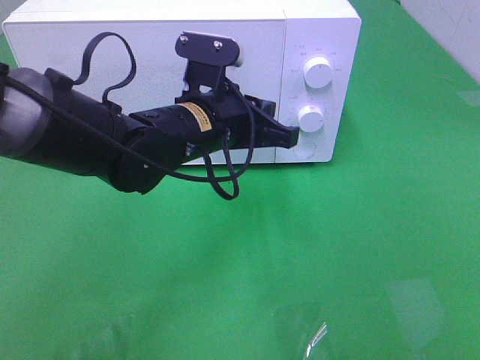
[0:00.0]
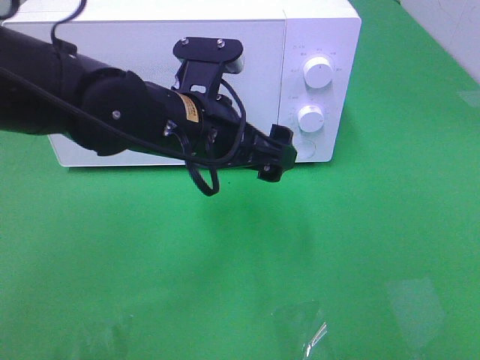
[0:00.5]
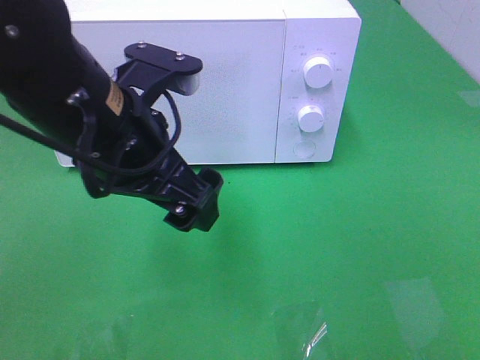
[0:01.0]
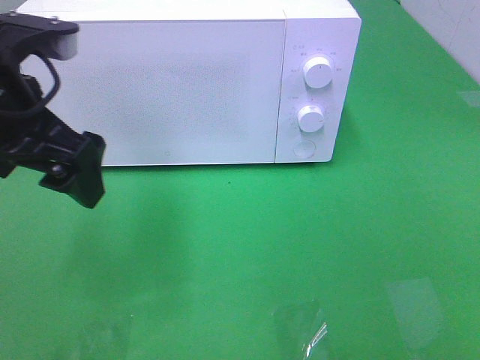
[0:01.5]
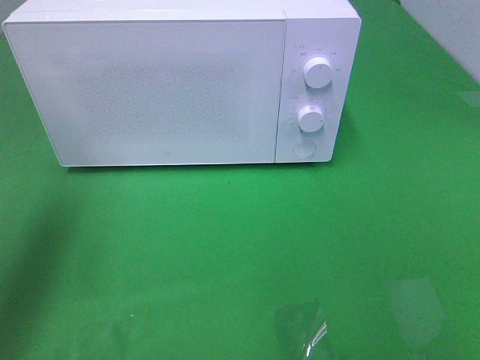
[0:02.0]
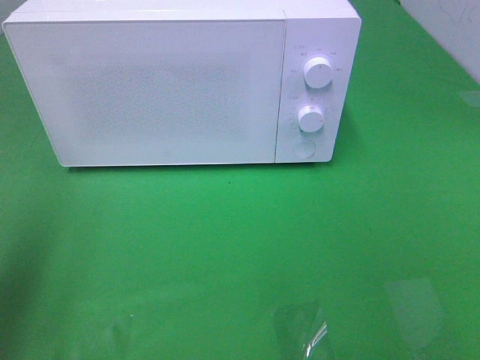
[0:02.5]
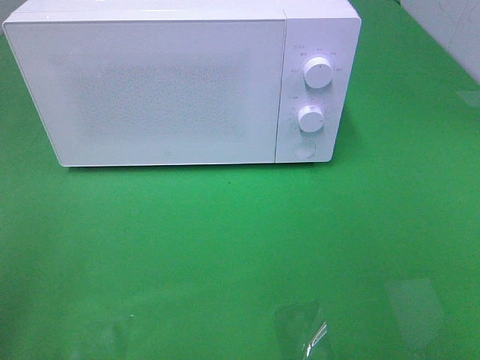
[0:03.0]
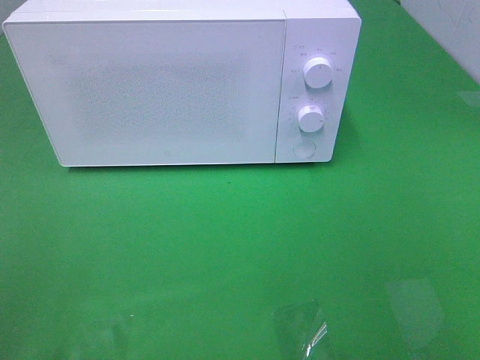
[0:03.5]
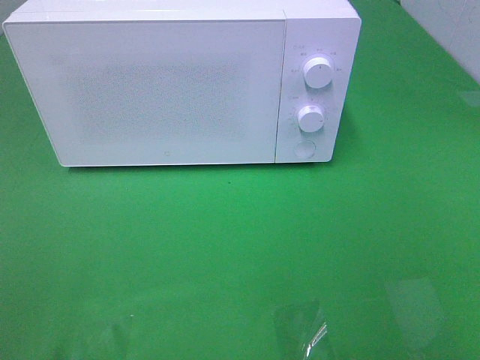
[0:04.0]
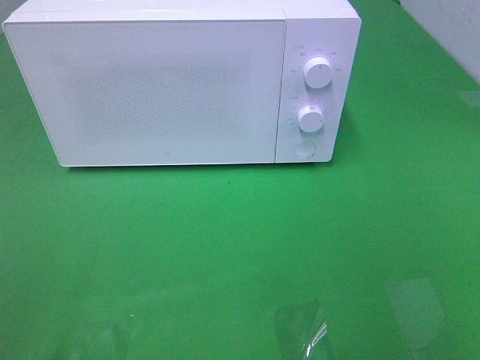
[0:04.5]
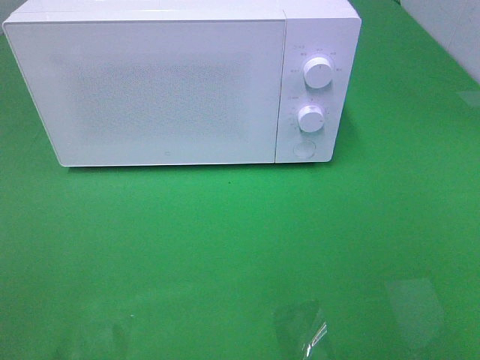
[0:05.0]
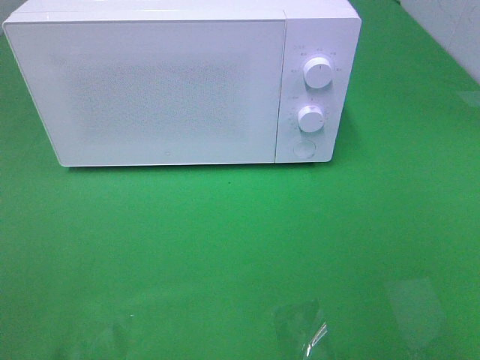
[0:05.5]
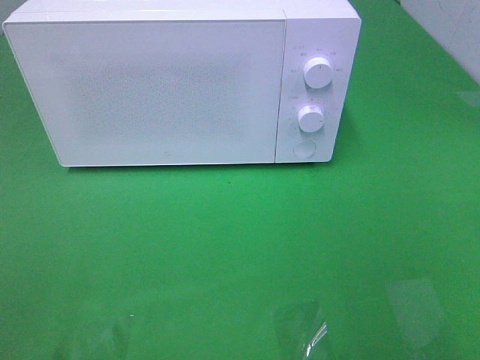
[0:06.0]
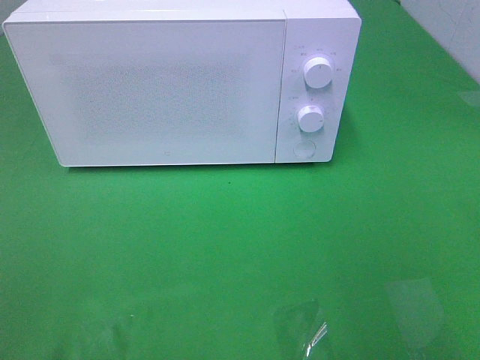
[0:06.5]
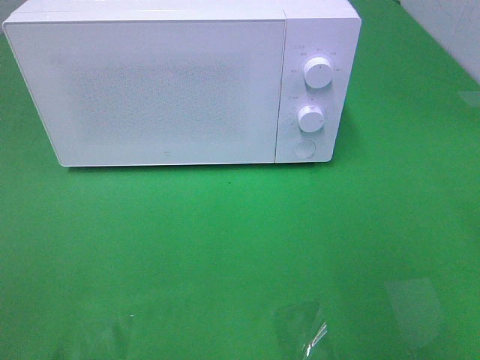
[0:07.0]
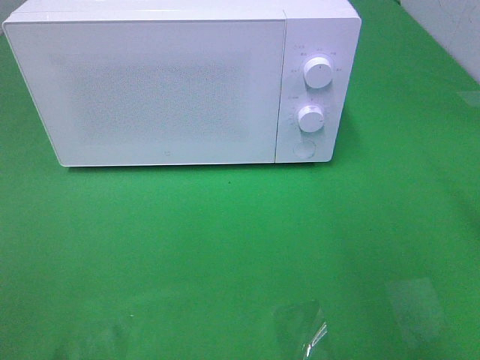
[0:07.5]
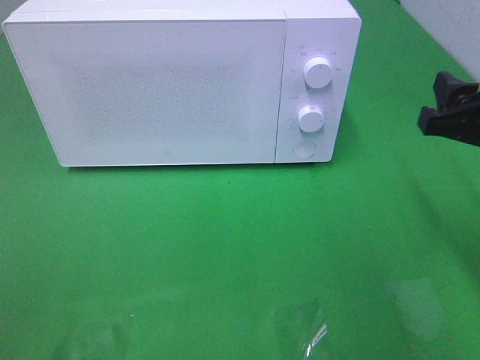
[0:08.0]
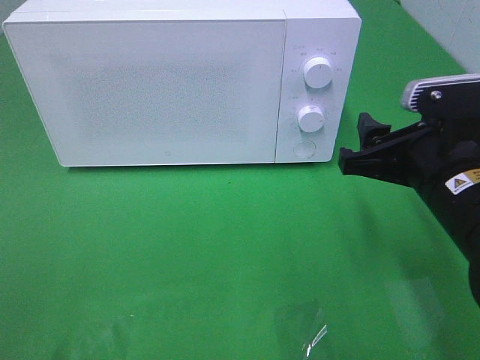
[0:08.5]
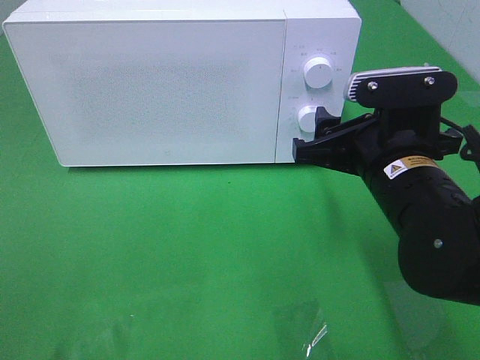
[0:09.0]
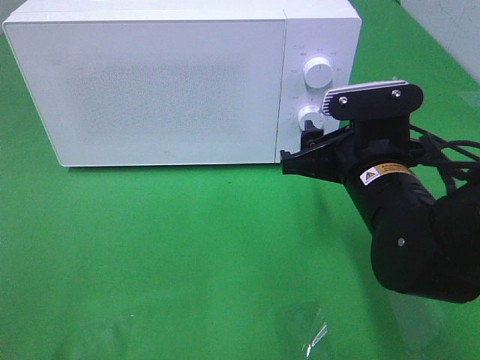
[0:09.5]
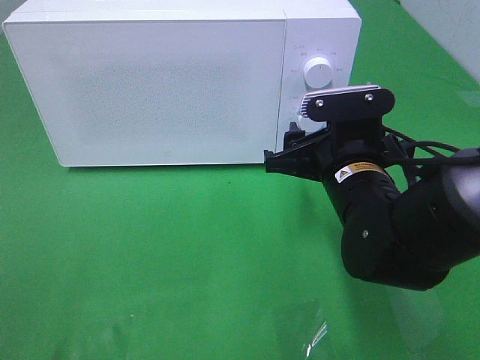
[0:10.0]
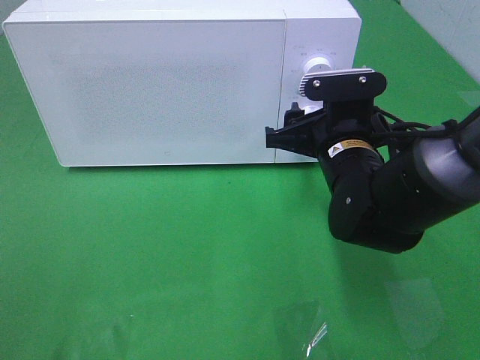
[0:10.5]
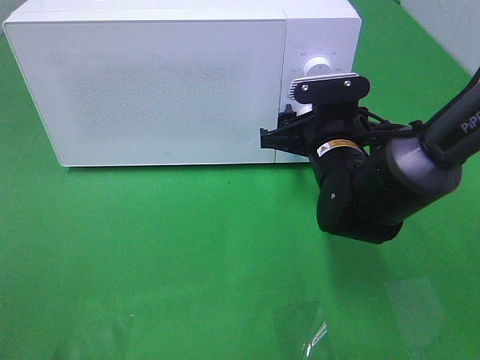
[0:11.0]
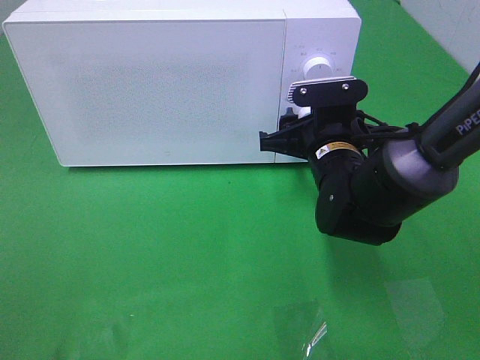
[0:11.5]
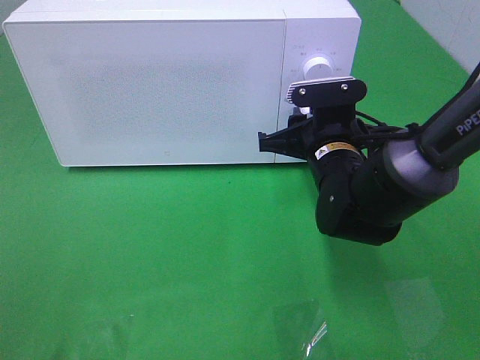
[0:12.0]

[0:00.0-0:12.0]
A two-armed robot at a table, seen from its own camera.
Task of the whole recording: Heat the burger.
0:00.0 to 0:02.0: The left gripper goes some 30 cm to the left and upward, and opens its fingers.
0:02.0 to 0:04.0: The left gripper shifts roughly 25 cm backward.
0:06.0 to 0:08.0: The right gripper heads forward and downward, covering some 20 cm.
0:08.0 to 0:10.0: The right gripper moves to the left and downward, some 15 cm.
0:10.0 to 0:12.0: The right gripper moves forward, some 5 cm.

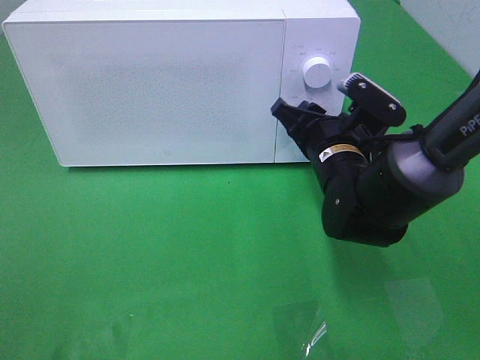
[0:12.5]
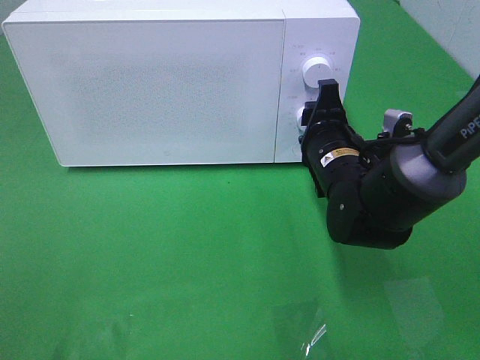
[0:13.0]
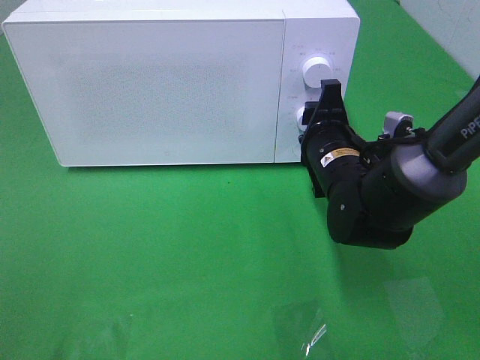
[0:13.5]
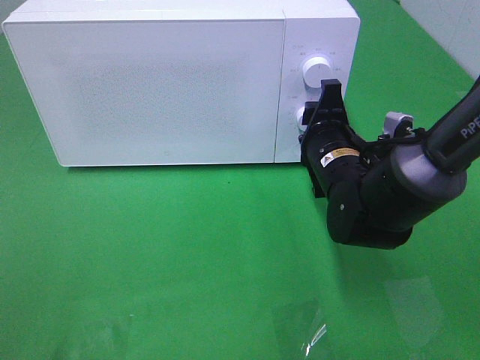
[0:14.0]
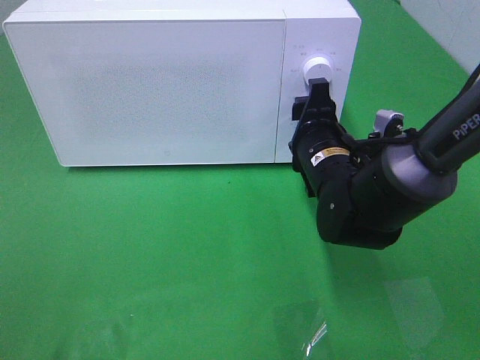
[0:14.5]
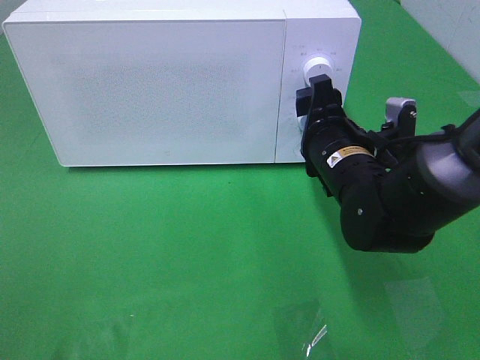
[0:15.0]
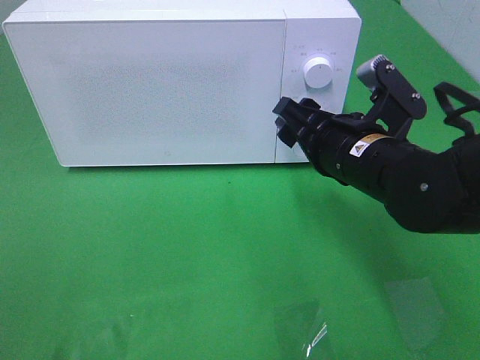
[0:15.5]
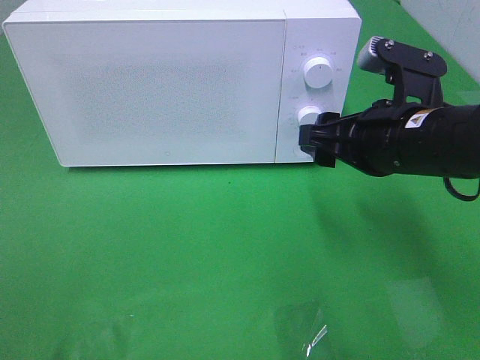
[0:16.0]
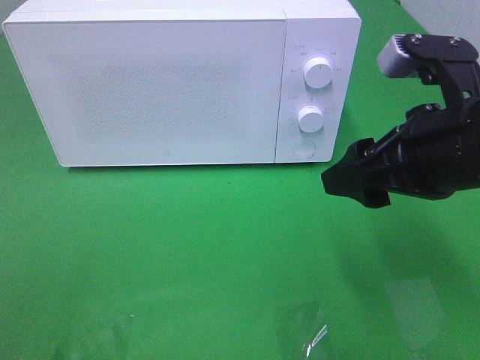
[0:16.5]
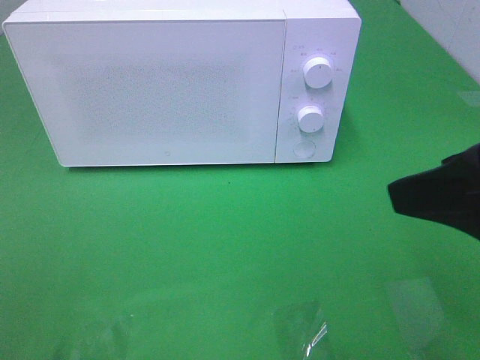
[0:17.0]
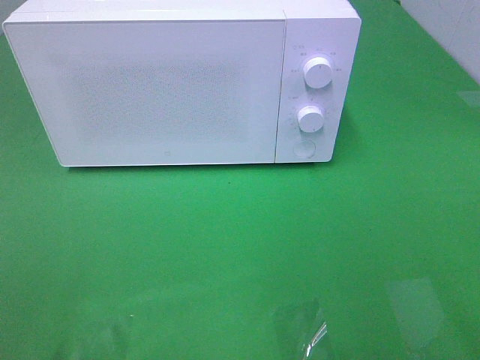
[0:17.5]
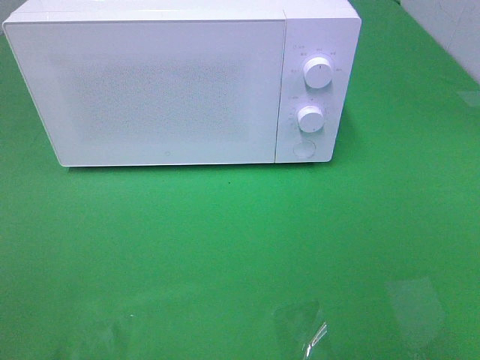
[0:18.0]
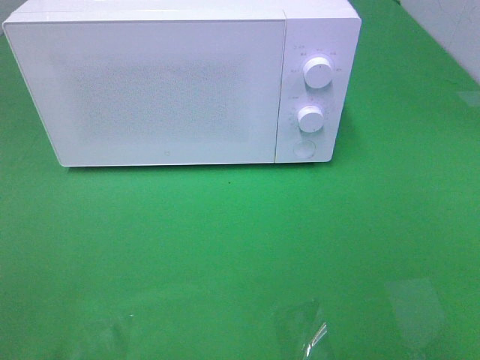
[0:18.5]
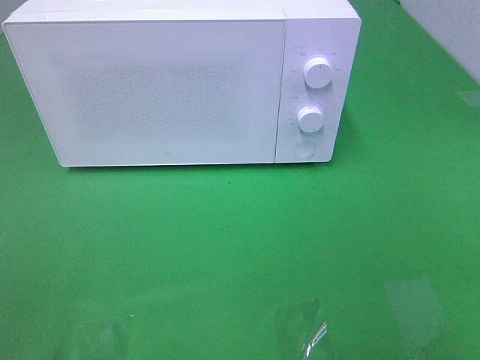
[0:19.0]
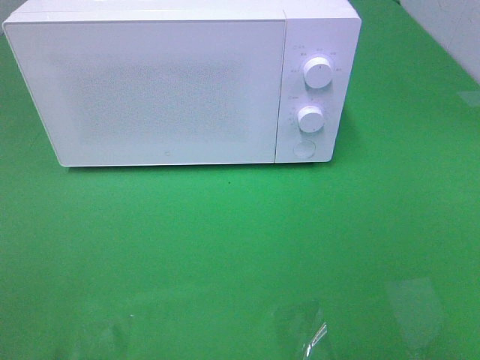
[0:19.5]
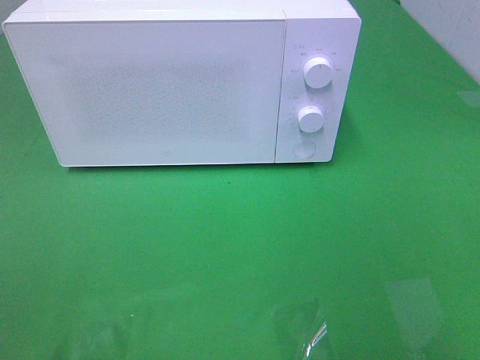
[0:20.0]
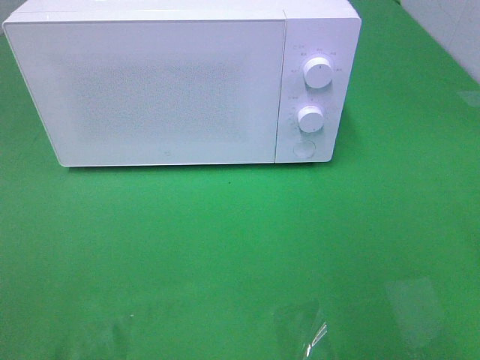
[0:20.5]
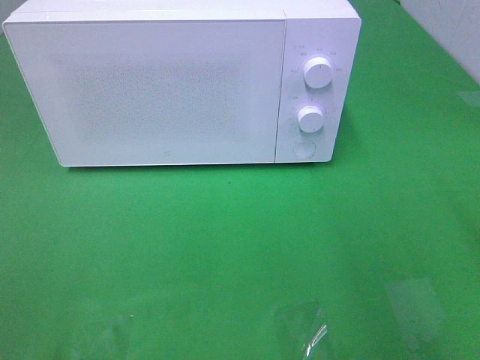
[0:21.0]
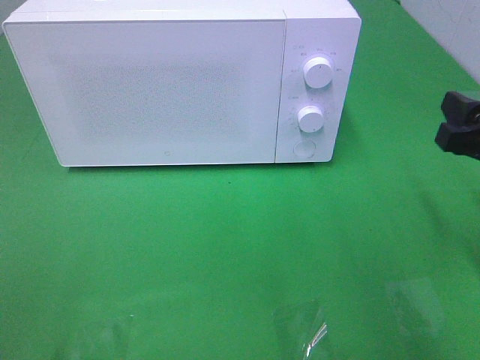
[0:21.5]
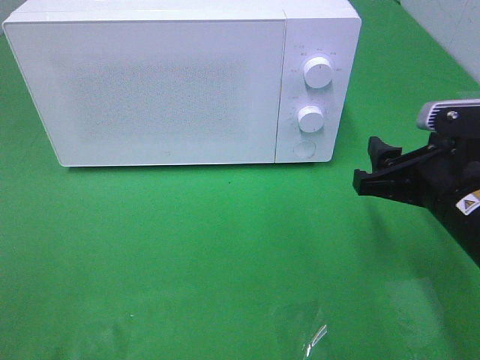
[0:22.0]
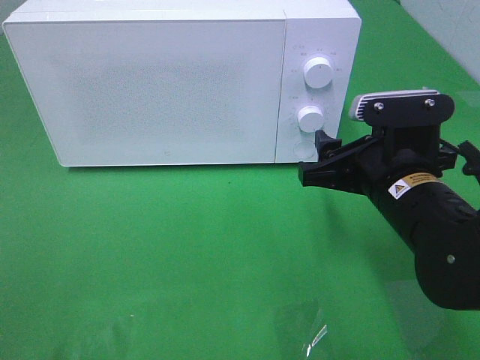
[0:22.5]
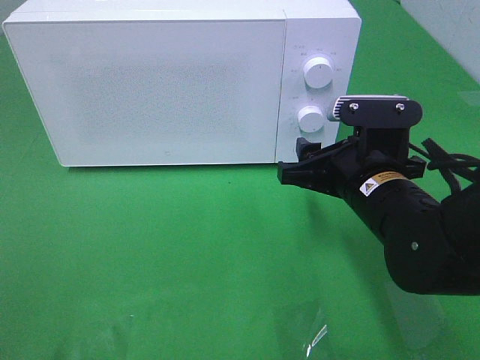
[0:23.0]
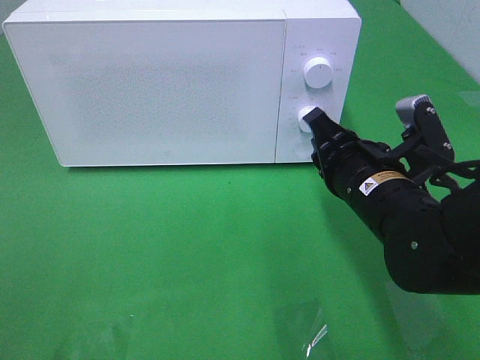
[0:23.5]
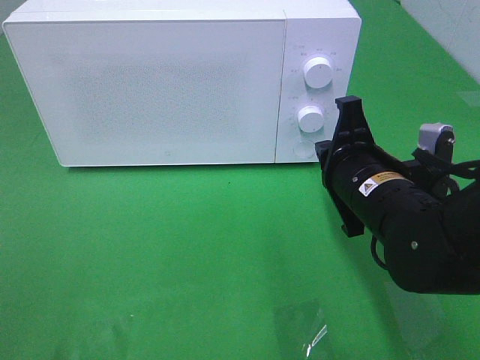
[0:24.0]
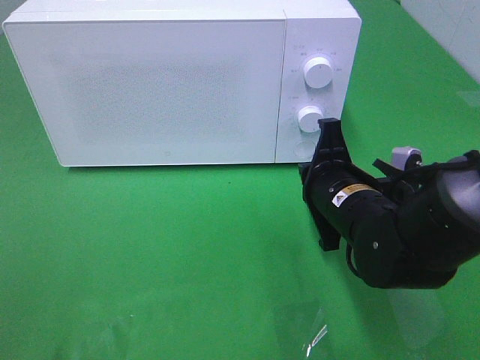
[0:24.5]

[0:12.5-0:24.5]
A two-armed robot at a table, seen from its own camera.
Task of the whole recording: Heat the burger.
0:14.5 to 0:16.5: The right gripper travels upward, backward and to the right by approximately 20 cm.
0:16.5 to 0:18.5: The right gripper shifts roughly 25 cm backward and to the right.
0:20.5 to 0:22.5: The right gripper heads downward, to the left and forward, covering about 20 cm.
0:22.5 to 0:24.5: The right gripper shifts by about 5 cm, and closes.

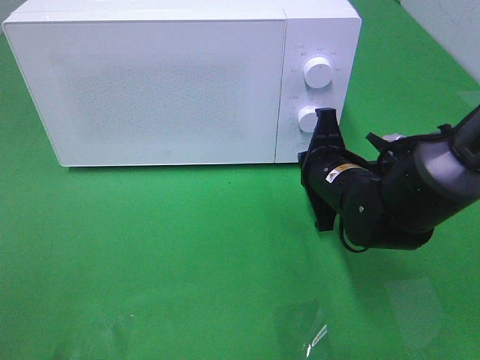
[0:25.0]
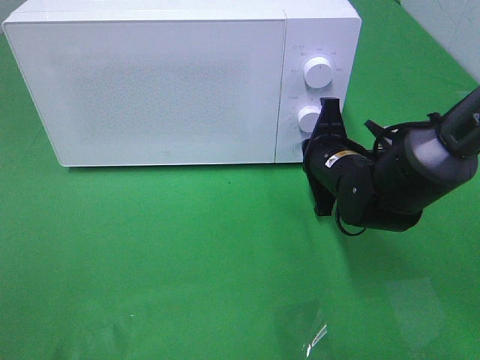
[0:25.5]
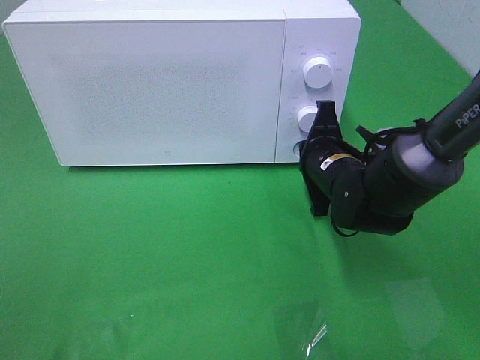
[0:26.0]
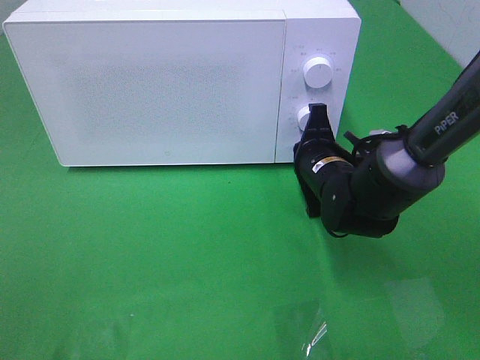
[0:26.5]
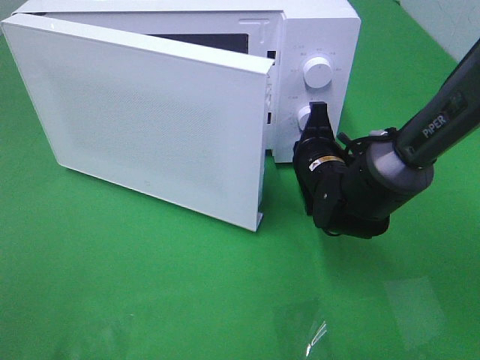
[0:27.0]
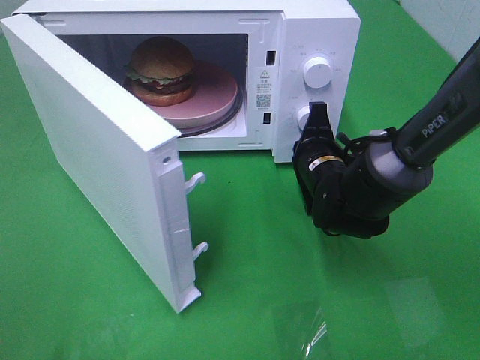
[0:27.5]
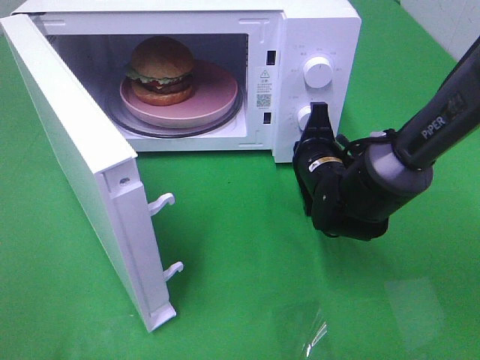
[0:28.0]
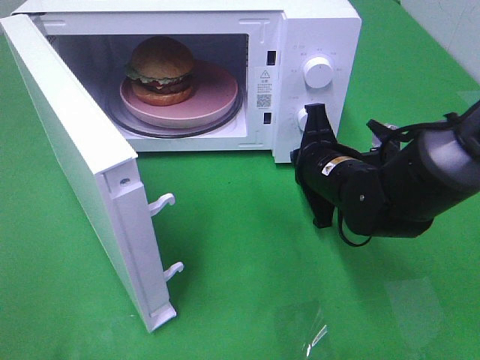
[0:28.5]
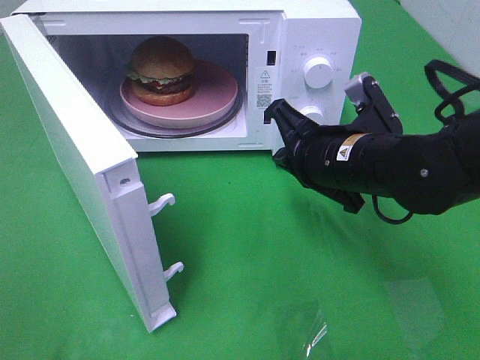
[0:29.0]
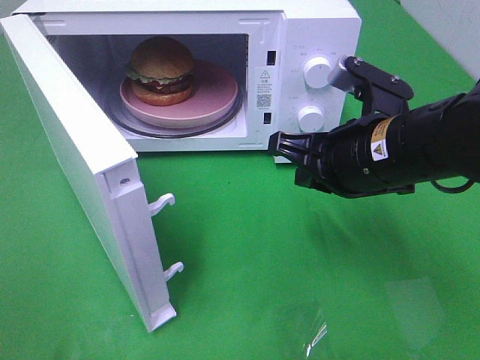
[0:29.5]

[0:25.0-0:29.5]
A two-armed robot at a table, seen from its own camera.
Task of the whole recording: Heat the burger.
Step, 0:25.0 to 0:28.5: Right hand: press the switch.
0:27.0 to 0:29.5: The right gripper is displaced upward and backward by approximately 15 cm.
